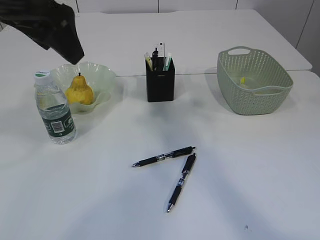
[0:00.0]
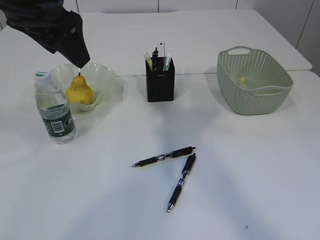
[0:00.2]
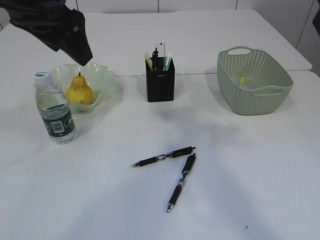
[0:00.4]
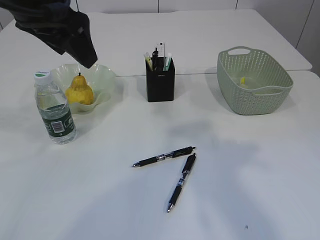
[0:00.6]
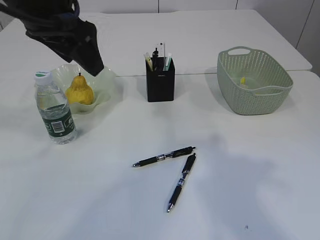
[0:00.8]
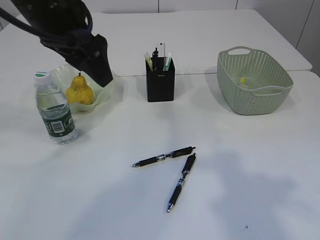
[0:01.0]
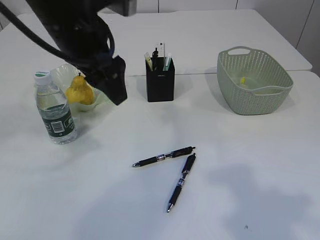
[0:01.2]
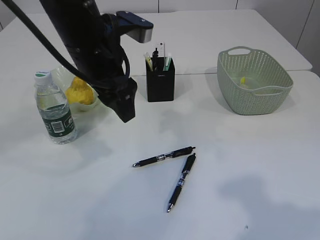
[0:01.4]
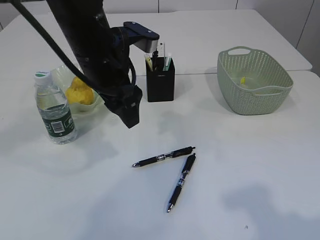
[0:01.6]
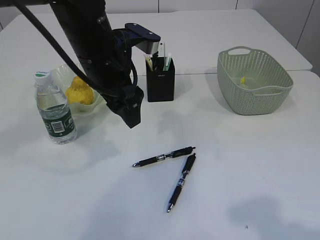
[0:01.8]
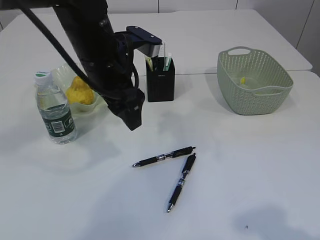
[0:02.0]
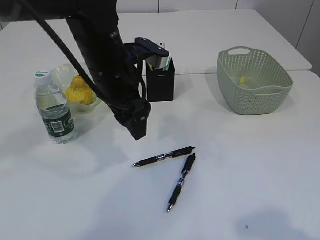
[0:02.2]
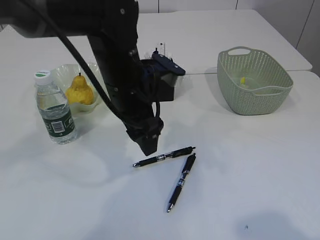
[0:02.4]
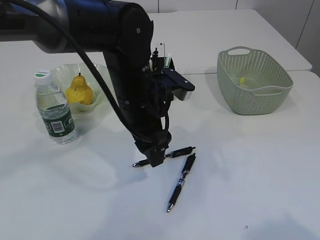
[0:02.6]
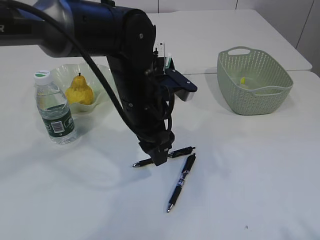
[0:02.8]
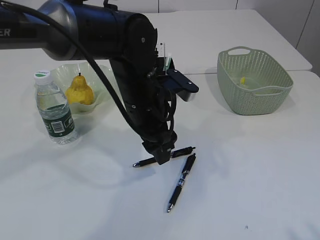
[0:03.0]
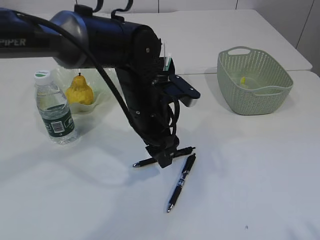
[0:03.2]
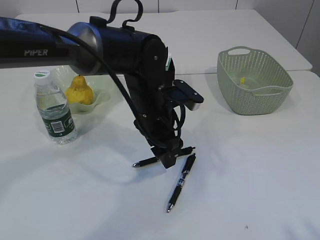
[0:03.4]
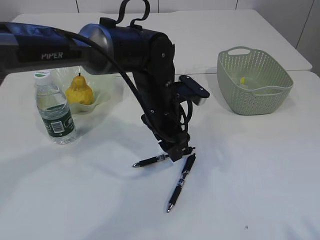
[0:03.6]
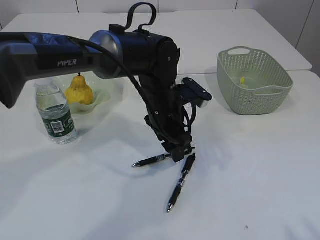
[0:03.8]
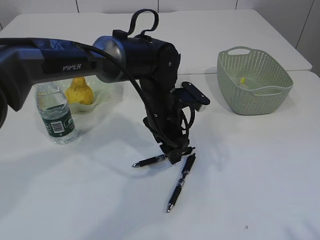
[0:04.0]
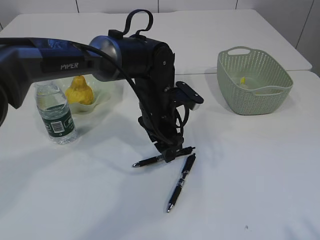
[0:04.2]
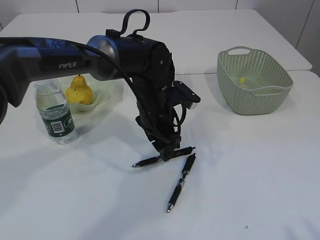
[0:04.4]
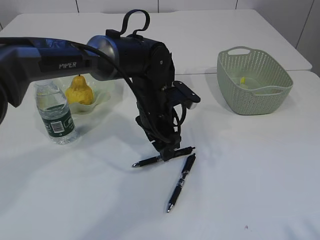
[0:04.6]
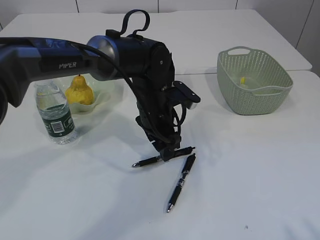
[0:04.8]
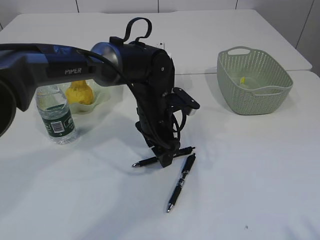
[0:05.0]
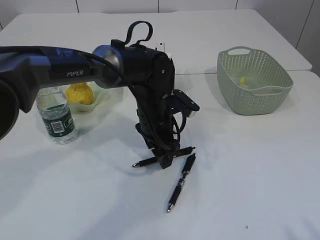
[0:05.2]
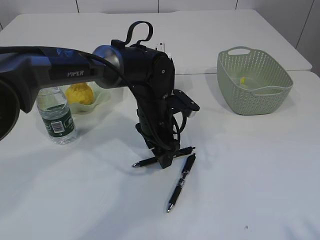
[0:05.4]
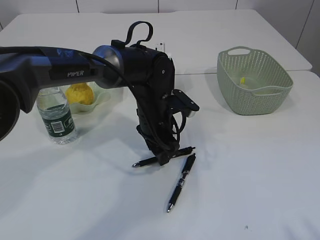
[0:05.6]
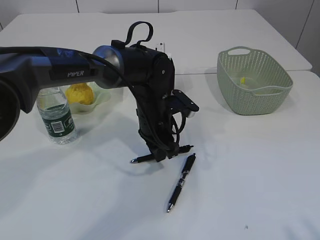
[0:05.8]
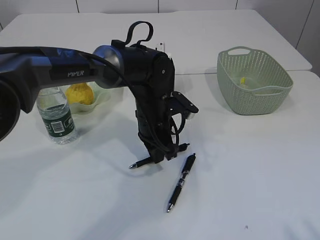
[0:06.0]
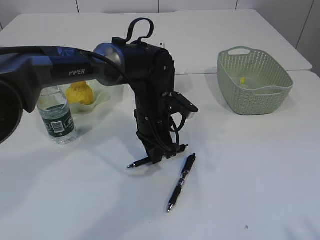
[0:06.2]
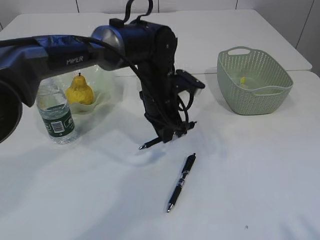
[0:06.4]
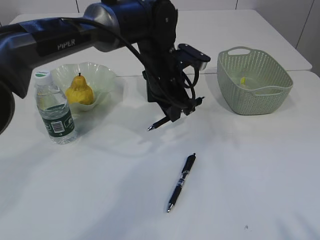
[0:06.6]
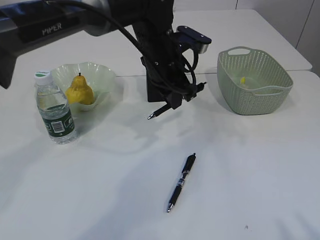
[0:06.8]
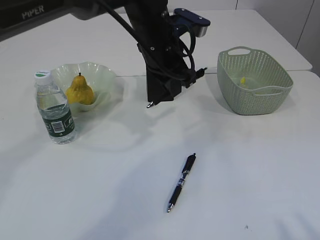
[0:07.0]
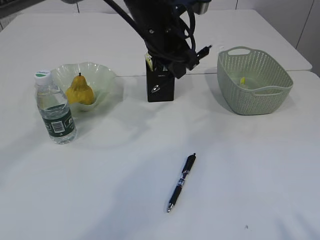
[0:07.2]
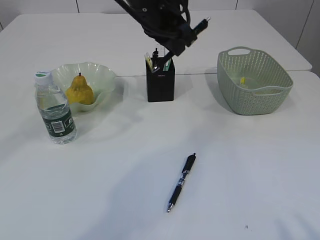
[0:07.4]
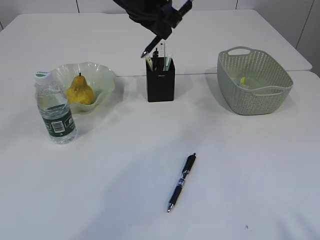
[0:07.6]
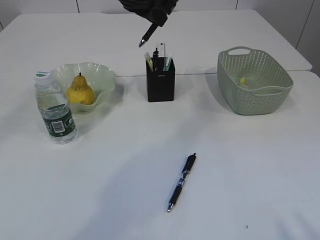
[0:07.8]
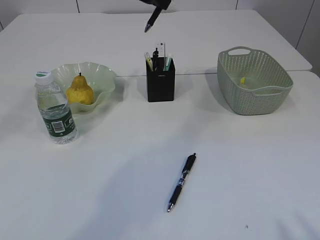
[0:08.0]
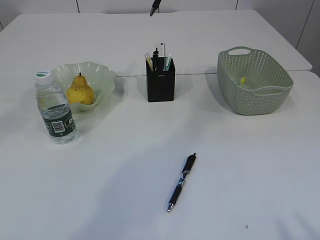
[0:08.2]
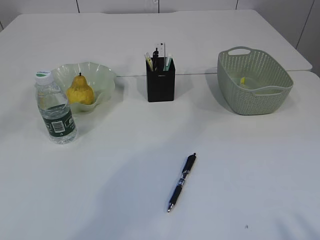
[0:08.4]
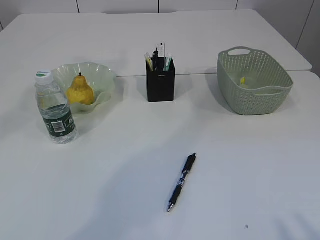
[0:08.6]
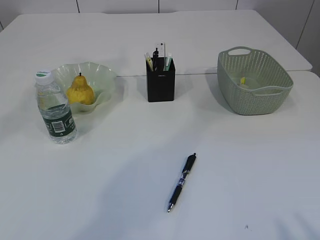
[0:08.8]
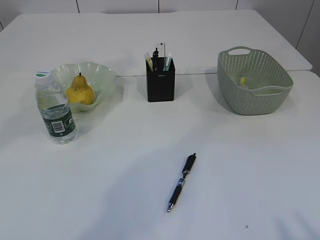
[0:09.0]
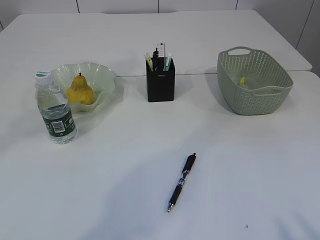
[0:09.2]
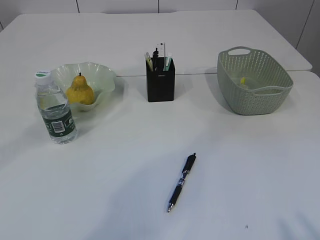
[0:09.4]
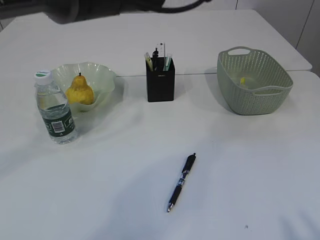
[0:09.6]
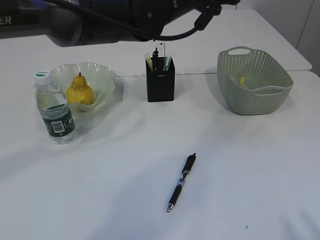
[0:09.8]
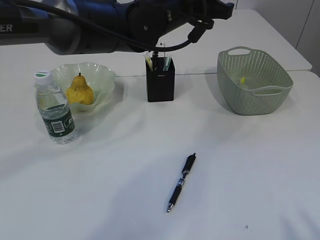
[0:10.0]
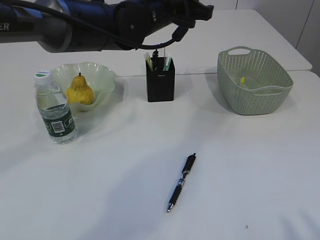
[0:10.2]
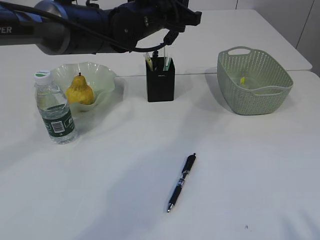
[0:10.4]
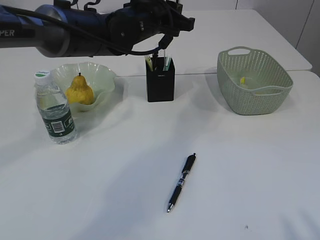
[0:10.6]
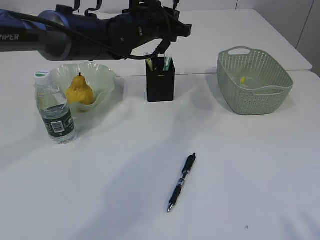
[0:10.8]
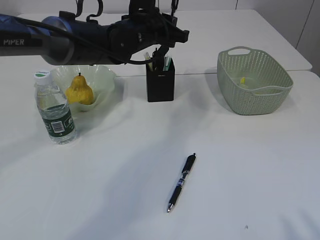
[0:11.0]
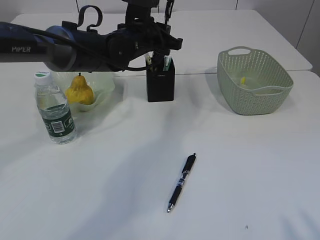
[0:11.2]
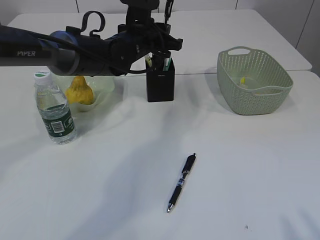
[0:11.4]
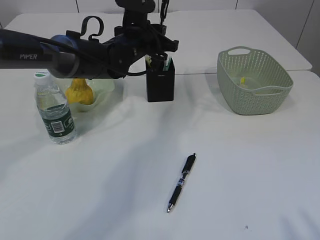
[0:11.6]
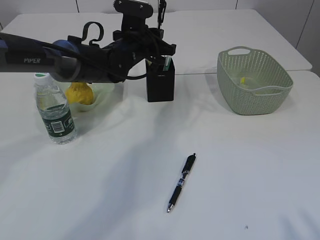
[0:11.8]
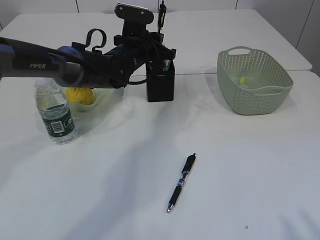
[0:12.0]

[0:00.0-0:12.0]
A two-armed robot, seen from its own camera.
Step, 0:00.0 to 0:06.6: Pick up the pen with left arm.
0:00.0 to 0:01.6: The right gripper moves backward, downward and to the right, roughly 25 cm; the left gripper is displaced downward and to the right by roughly 15 cm.
0:01.6 to 0:03.0: The left gripper is displaced downward and to the right by some 10 cm, while the right gripper is displaced backward by some 10 cm.
0:03.0 to 0:04.4: The left gripper travels downward and forward by approximately 10 cm.
0:04.4 to 0:06.0: The left gripper closes up.
0:06.0 to 0:07.6: The left gripper moves upward, approximately 20 cm.
0:07.6 to 0:09.0: The left gripper is displaced upward by about 10 cm.
0:09.0 to 0:10.4: The left gripper shifts roughly 15 cm downward.
0:10.4 to 0:12.0: The left gripper shifts some 10 cm downward.

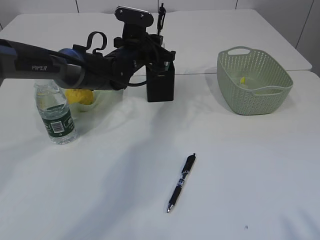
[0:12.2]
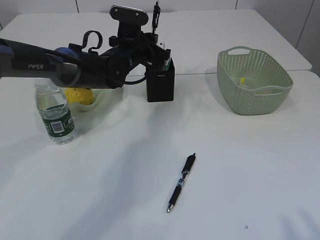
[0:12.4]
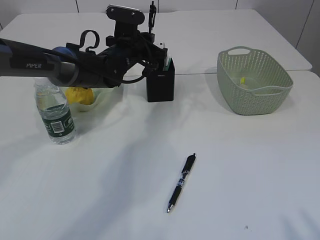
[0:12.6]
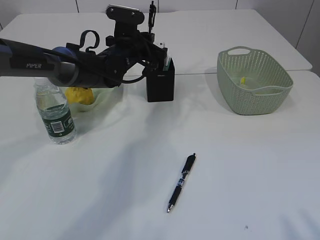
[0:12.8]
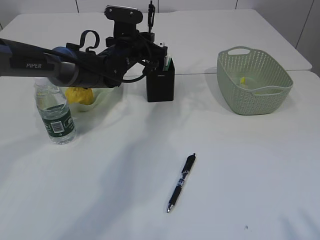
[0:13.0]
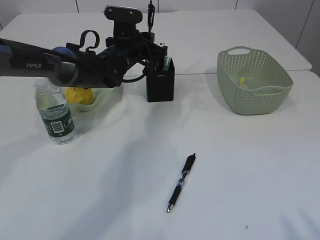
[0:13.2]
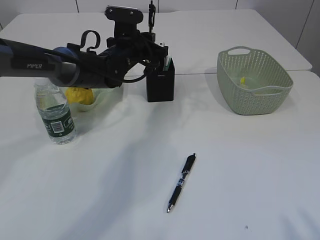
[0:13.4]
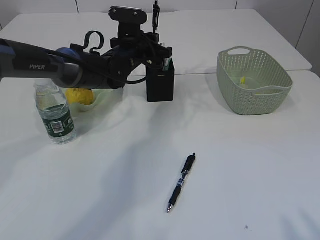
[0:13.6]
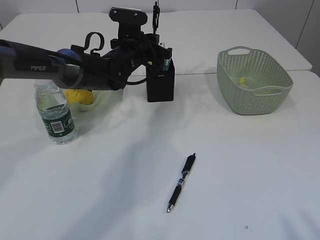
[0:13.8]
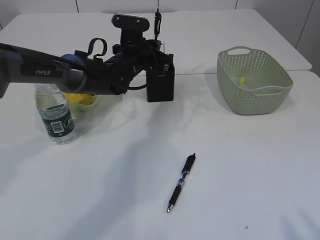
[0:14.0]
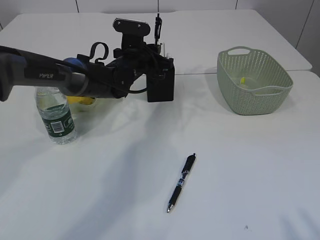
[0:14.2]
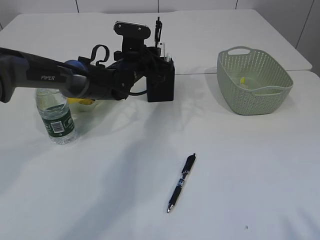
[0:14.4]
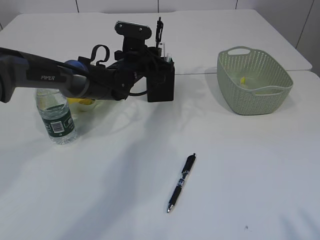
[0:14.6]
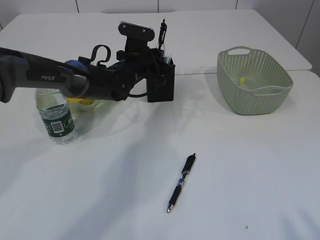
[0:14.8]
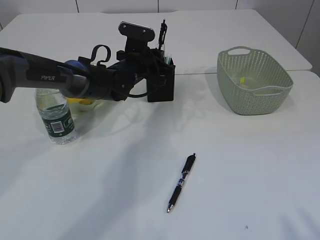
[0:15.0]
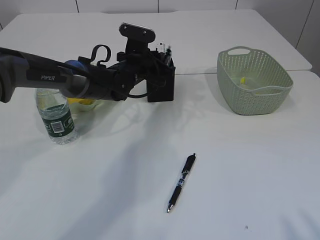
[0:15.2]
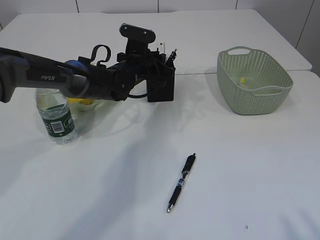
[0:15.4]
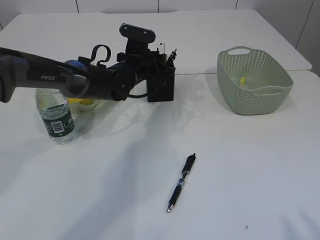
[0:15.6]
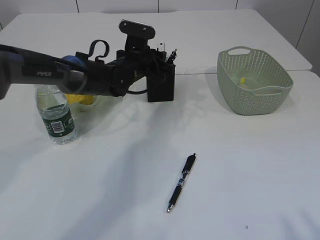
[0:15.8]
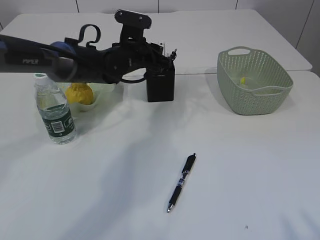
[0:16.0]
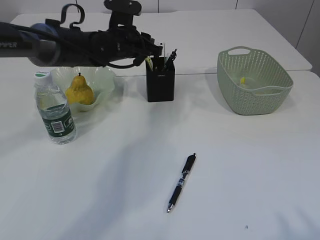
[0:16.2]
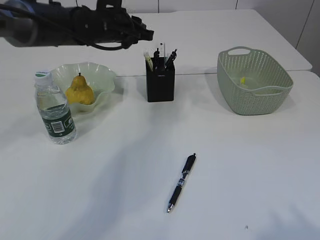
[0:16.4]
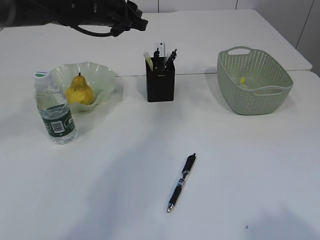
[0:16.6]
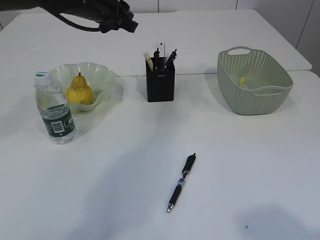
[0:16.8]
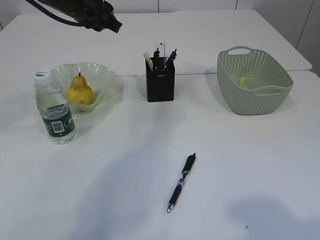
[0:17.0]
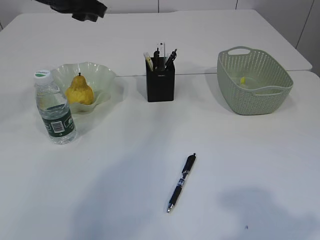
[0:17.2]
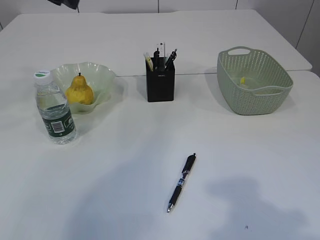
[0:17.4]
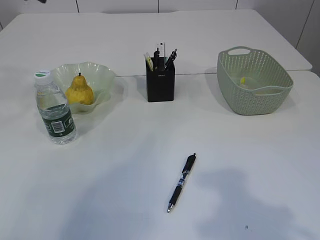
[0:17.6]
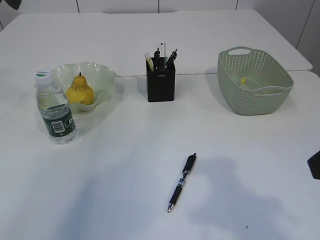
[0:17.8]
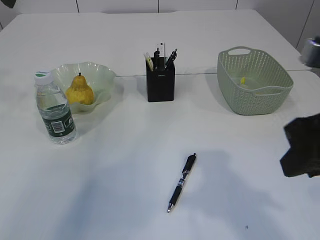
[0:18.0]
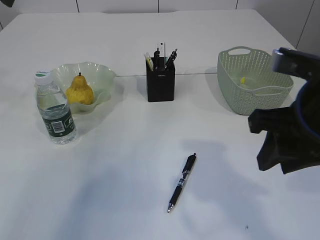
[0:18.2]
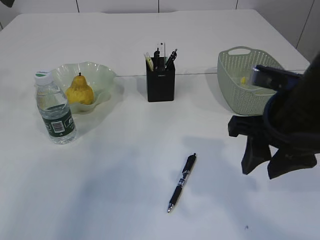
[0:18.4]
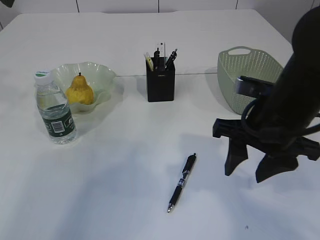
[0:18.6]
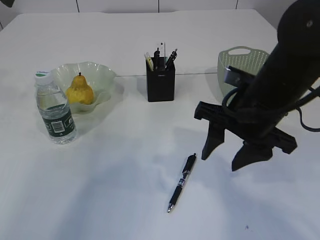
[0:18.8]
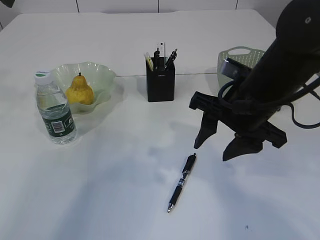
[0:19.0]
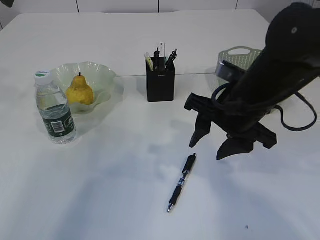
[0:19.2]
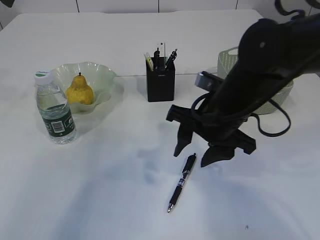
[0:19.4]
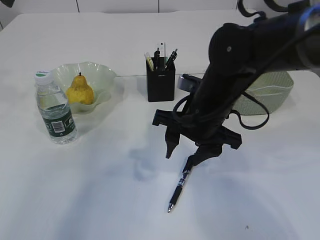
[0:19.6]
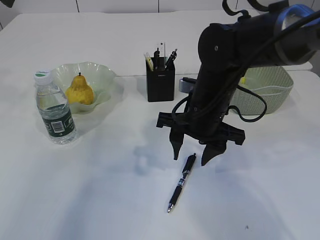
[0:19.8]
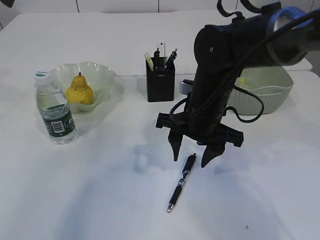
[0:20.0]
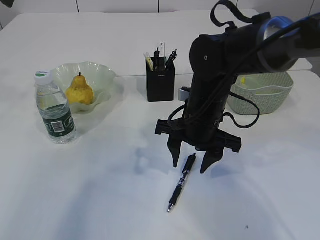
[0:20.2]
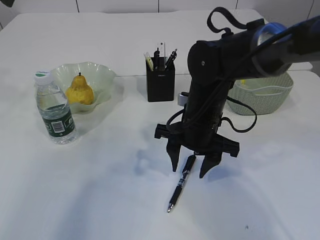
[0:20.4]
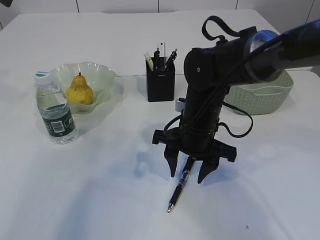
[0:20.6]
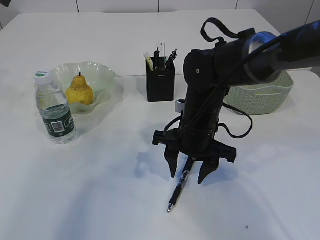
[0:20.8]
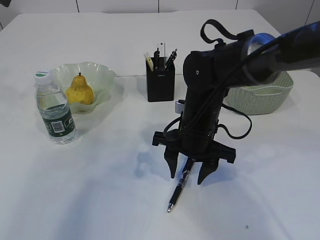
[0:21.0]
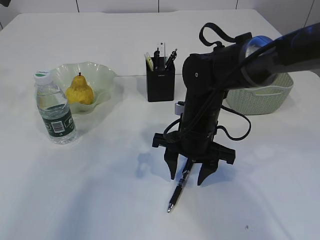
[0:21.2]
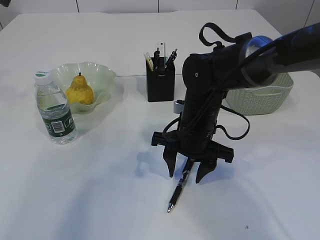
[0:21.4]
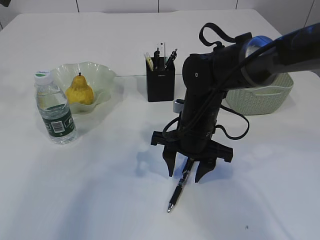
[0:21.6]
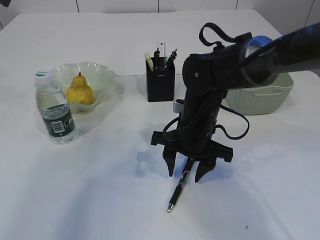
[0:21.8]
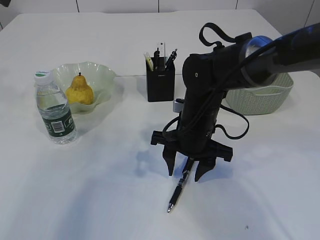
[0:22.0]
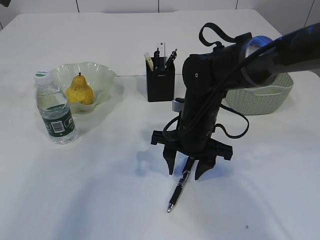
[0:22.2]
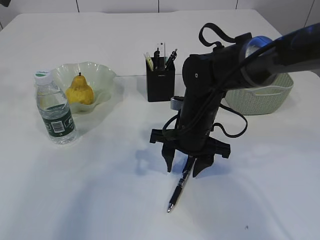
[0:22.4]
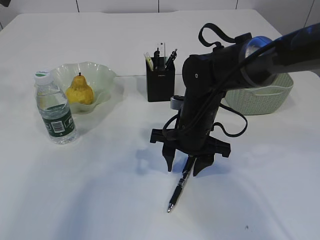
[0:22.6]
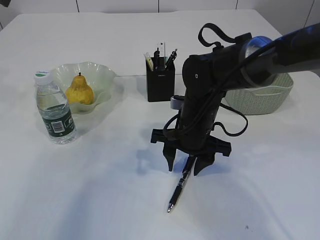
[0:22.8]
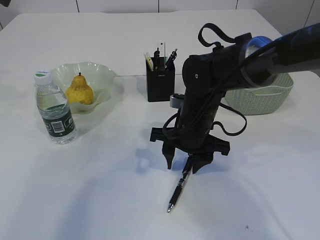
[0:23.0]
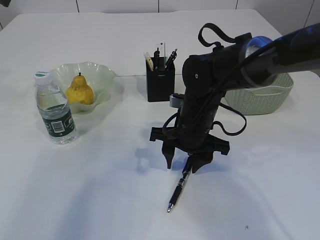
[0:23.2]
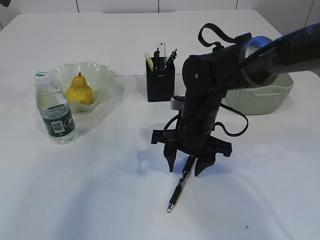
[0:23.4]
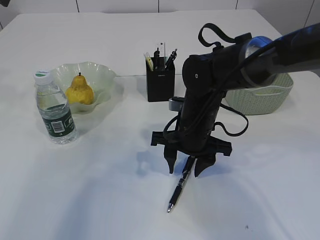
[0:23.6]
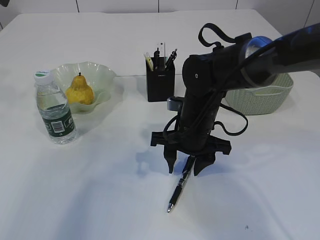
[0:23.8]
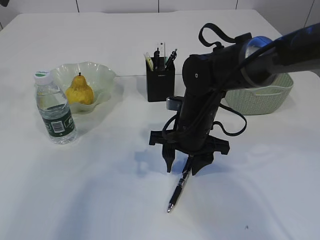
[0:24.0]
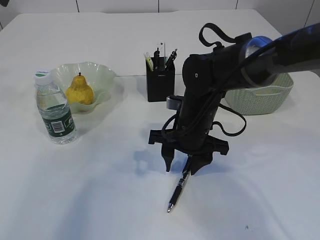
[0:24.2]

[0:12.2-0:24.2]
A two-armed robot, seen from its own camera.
Step, 0:12.2 to 0:16.4: Place the pen into the pen holder.
0:12.2 to 0:15.2: There are only small adjustments of the grippers.
0:15.2 to 0:16.6: The left gripper shifts about 15 cm upward.
0:16.6 to 0:18.2: The right gripper shifts roughly 20 cm forward and to the left. Meanwhile the left gripper travels to the left, upward and backward by about 20 cm.
0:18.2 to 0:19.8: The right gripper is displaced forward, downward and to the left by approximately 20 cm.
0:19.8 to 0:24.2: The grippers stay close to where they were, moving slightly.
